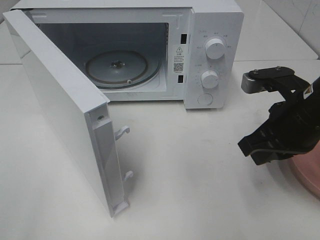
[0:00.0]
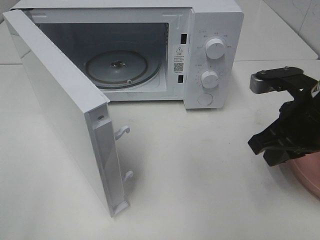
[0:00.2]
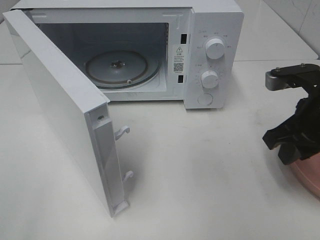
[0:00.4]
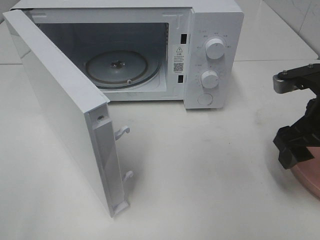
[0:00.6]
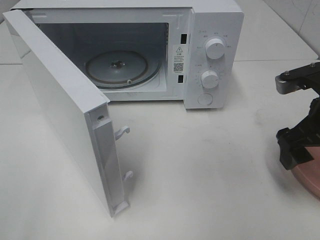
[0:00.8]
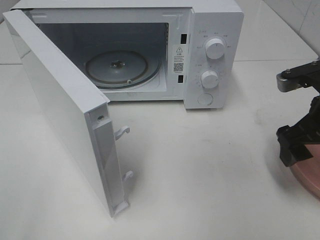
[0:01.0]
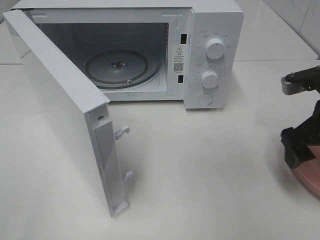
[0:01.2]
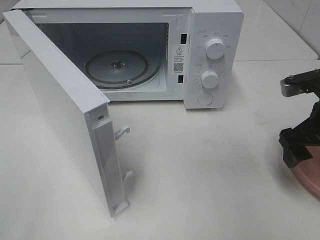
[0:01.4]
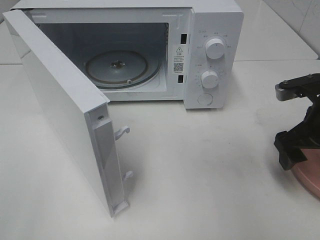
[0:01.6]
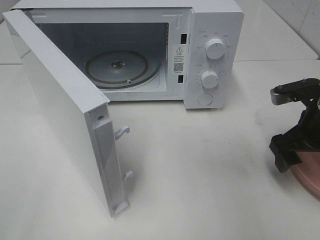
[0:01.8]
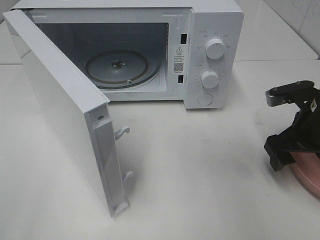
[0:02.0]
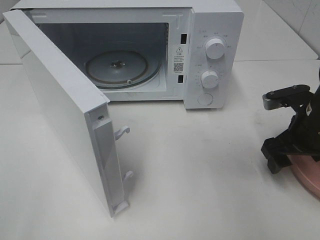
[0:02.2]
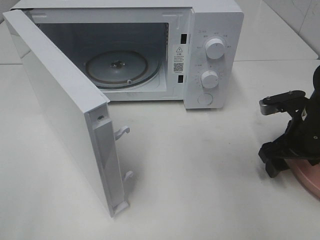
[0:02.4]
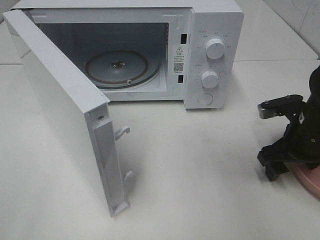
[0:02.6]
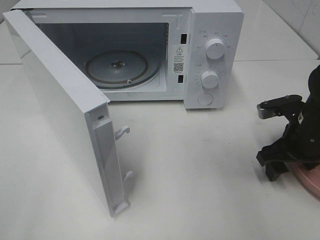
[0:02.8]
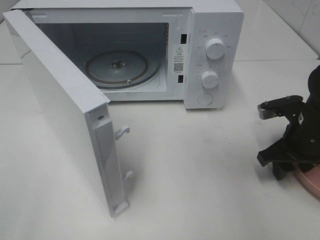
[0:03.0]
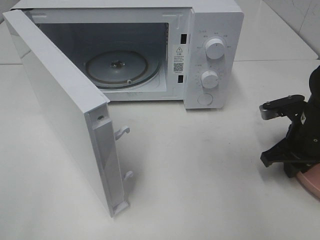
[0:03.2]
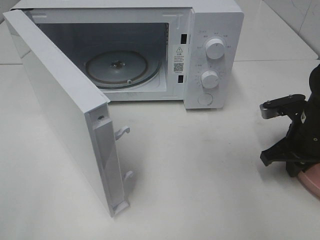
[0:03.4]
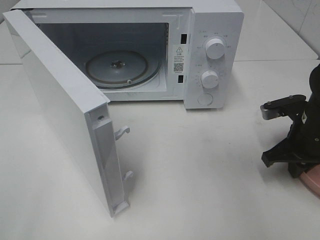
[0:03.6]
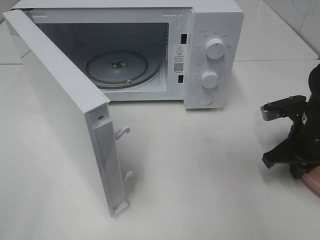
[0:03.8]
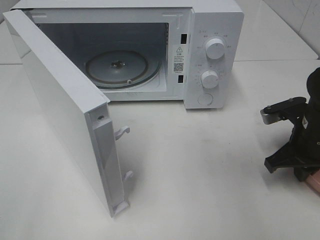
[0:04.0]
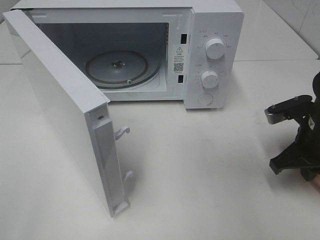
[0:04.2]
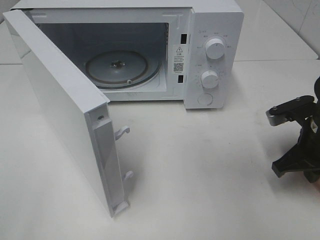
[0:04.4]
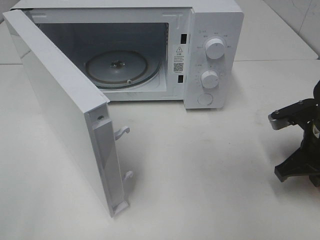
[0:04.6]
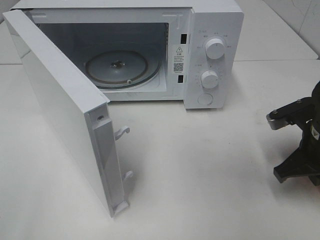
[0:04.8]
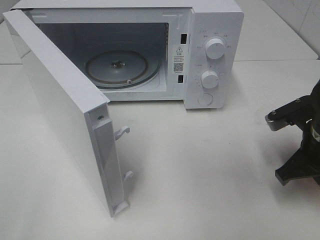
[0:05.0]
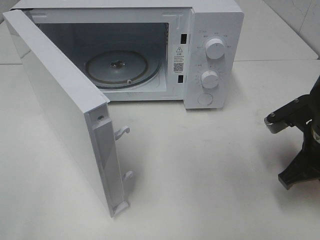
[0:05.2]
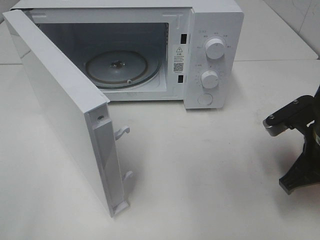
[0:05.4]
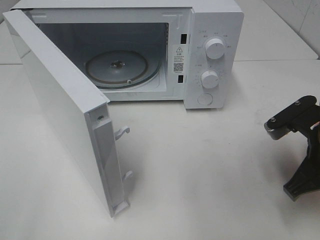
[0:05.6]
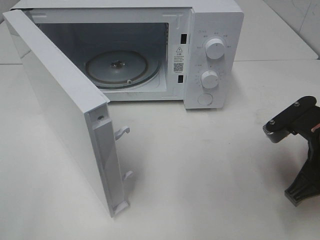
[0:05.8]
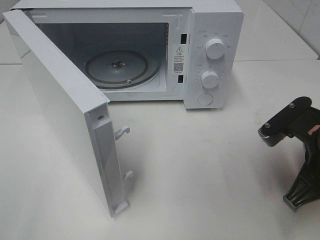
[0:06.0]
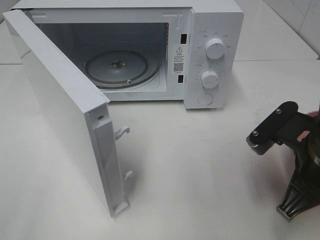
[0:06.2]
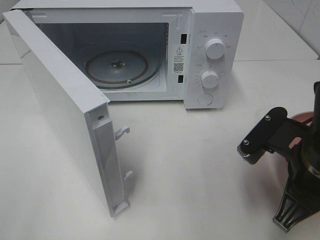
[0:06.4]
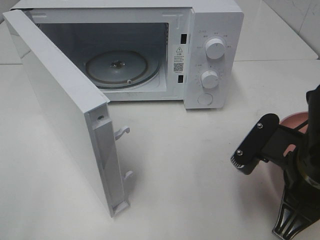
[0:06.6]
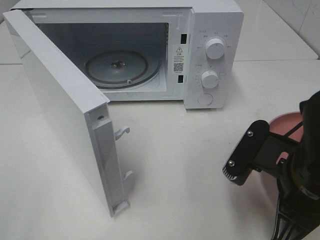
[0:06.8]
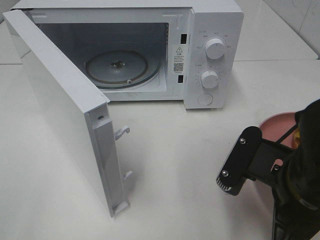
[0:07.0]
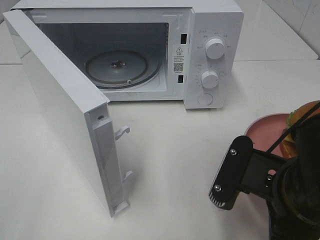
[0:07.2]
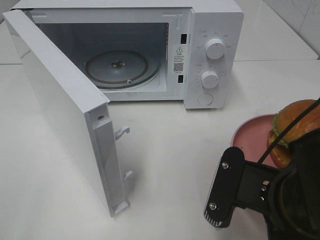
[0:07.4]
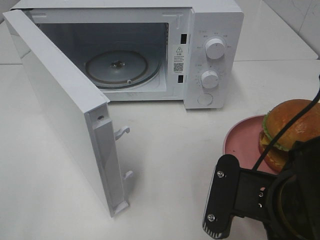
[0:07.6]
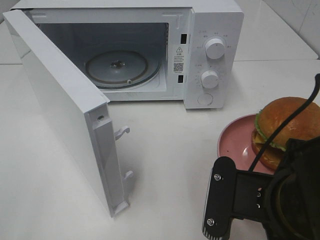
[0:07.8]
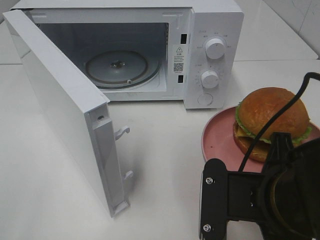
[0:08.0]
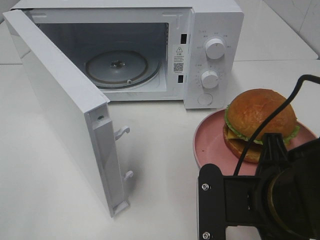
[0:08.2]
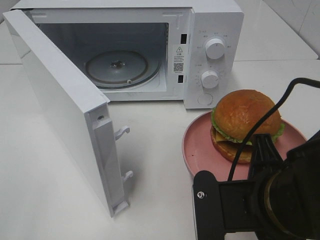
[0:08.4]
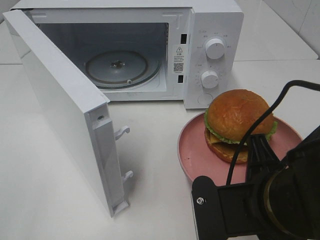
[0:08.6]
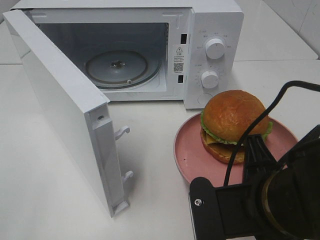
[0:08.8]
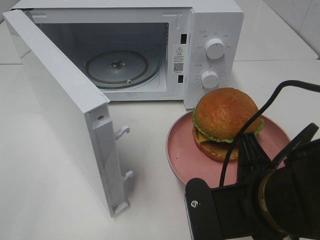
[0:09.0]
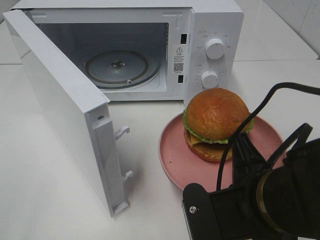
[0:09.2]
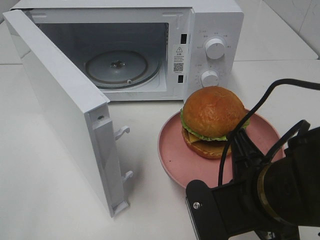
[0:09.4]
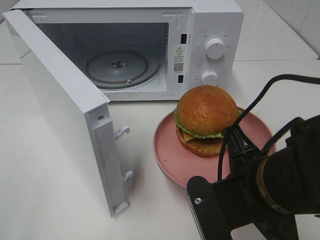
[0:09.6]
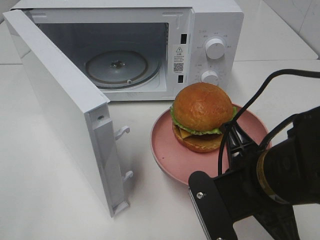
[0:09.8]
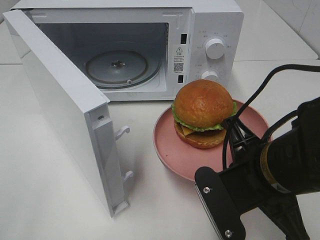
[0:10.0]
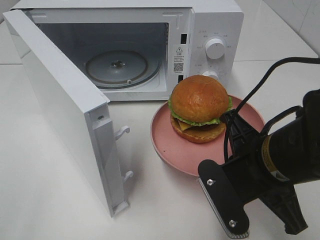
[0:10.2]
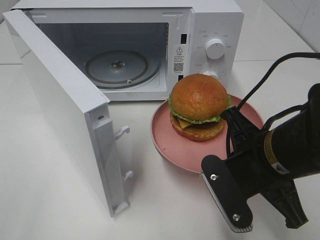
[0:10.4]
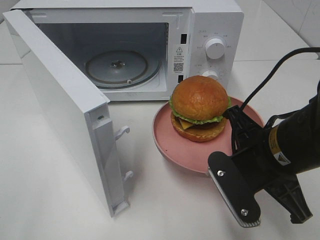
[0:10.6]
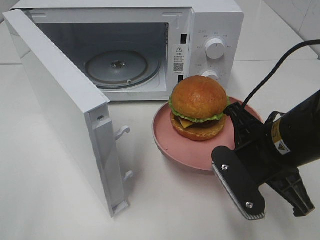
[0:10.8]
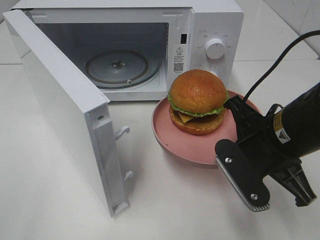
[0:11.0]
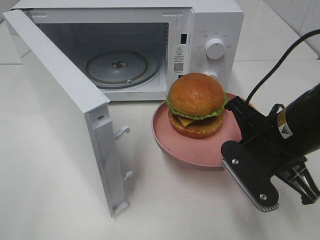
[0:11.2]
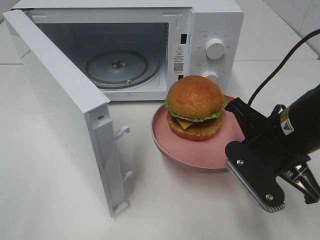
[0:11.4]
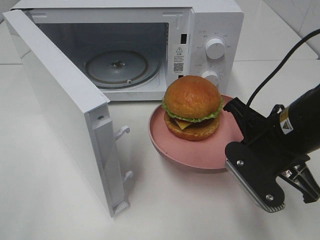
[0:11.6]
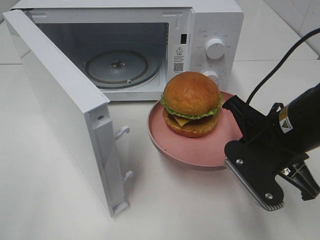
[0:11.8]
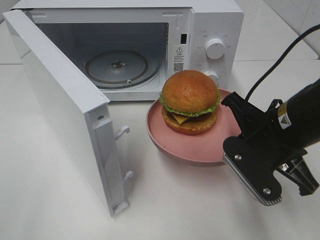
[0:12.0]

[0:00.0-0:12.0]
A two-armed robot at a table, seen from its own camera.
Task of the whole recording: Heat the burger.
Step, 0:00.0 to 0:03.8: Right hand: grab the plate with the hamburger.
0:00.0 to 0:01.6: The right gripper shifts about 5 cm to the right, and opens its fingers.
0:01.6 to 0:03.0: The right gripper heads downward, covering approximately 5 cm.
0:03.0 to 0:04.4: The right gripper closes up.
0:04.4 to 0:06.0: The right gripper goes approximately 5 cm backward.
0:06.0 to 0:07.6: The right gripper is displaced to the left and backward by roughly 10 cm.
0:09.0 to 0:10.4: The right gripper moves forward, some 5 cm.
0:10.4 to 0:12.0: The grippers move only a little.

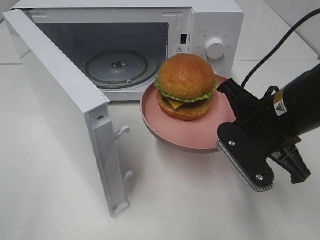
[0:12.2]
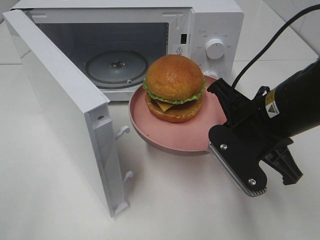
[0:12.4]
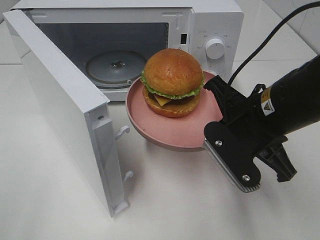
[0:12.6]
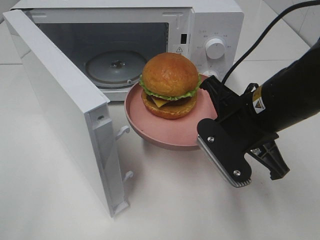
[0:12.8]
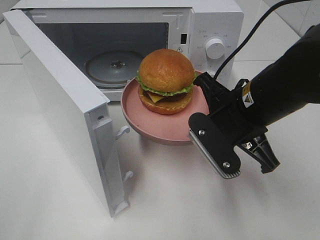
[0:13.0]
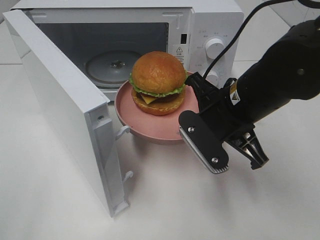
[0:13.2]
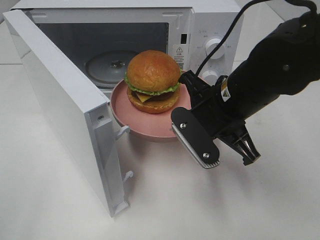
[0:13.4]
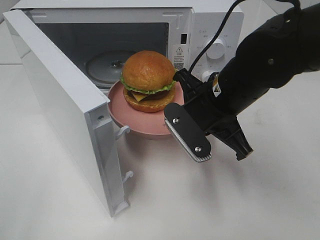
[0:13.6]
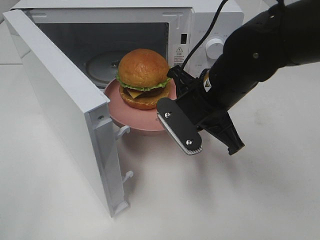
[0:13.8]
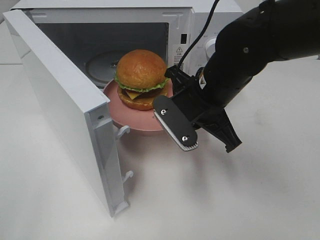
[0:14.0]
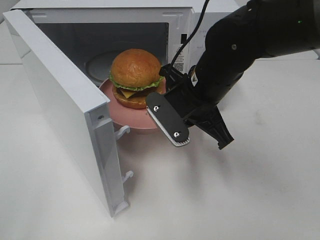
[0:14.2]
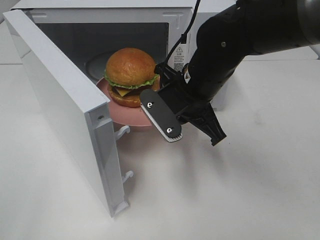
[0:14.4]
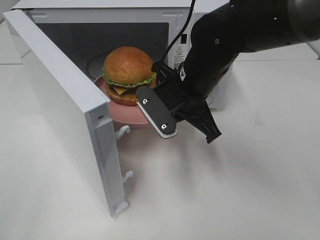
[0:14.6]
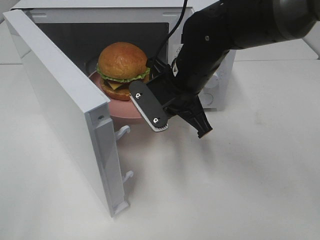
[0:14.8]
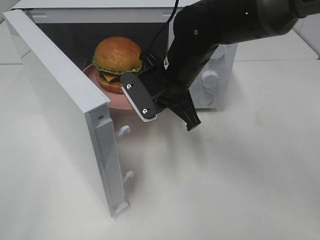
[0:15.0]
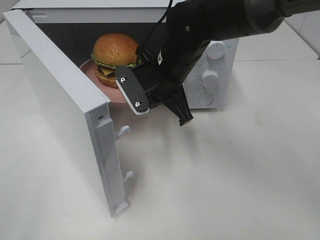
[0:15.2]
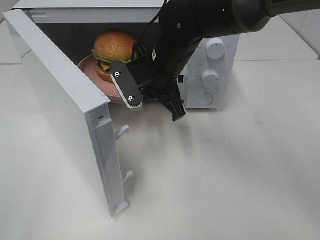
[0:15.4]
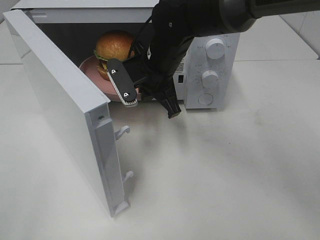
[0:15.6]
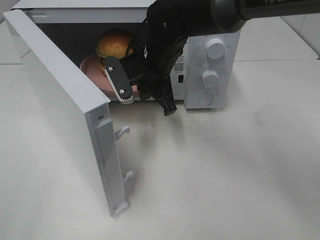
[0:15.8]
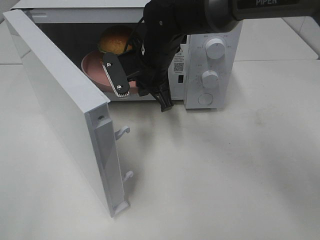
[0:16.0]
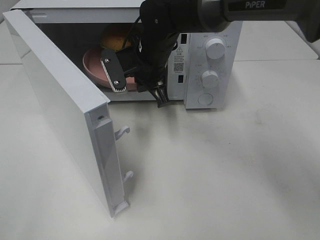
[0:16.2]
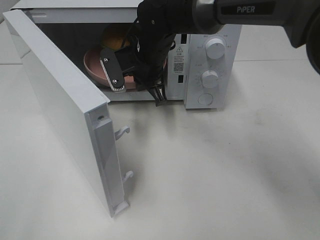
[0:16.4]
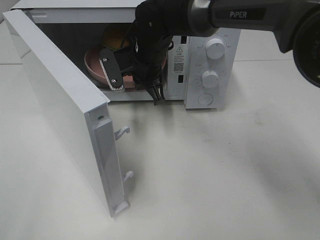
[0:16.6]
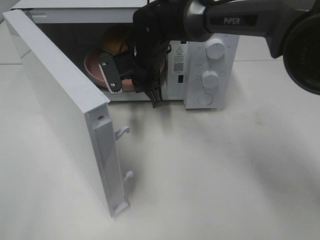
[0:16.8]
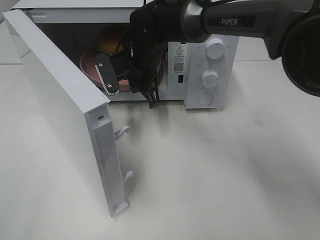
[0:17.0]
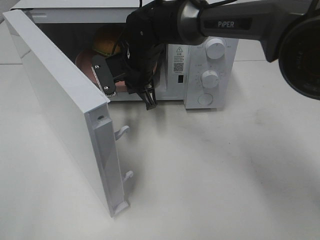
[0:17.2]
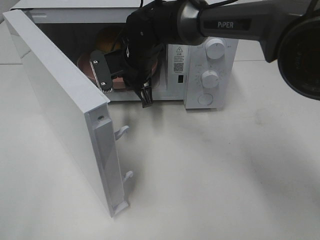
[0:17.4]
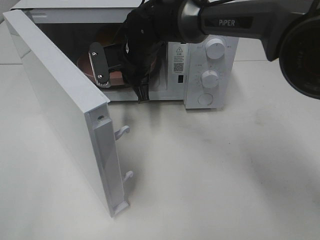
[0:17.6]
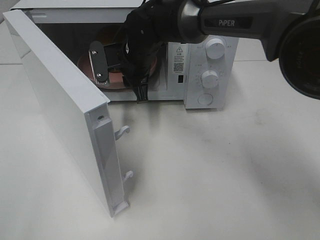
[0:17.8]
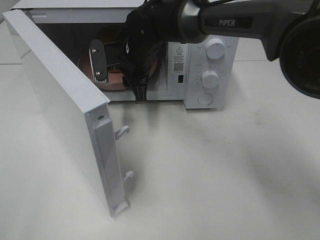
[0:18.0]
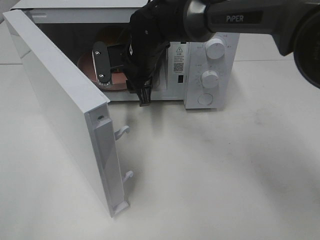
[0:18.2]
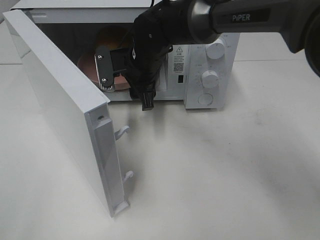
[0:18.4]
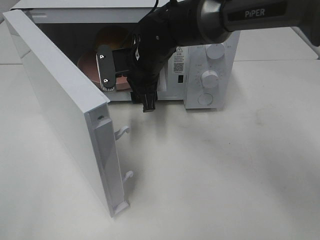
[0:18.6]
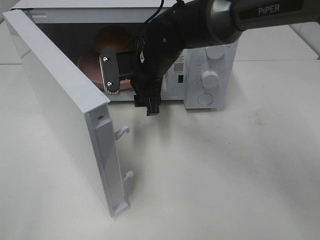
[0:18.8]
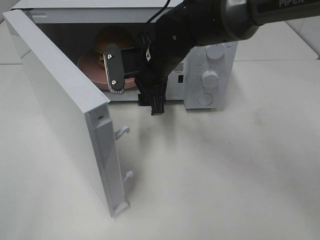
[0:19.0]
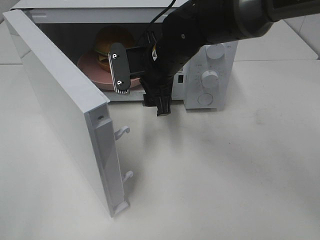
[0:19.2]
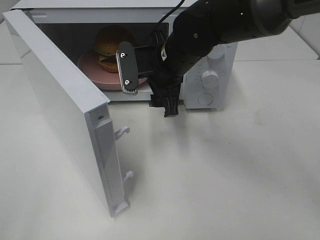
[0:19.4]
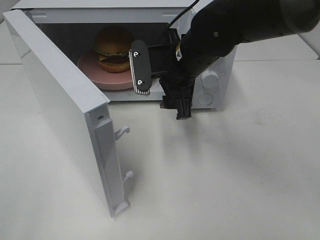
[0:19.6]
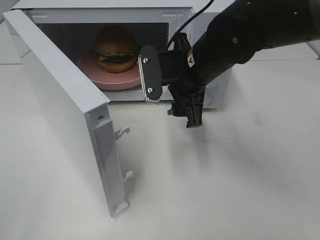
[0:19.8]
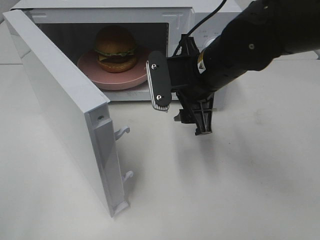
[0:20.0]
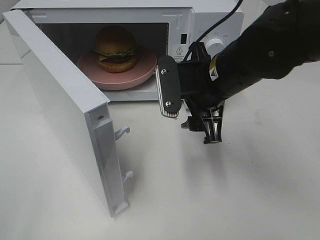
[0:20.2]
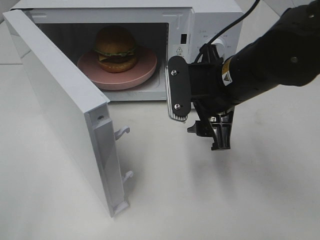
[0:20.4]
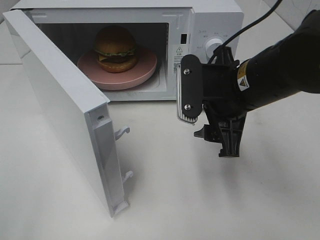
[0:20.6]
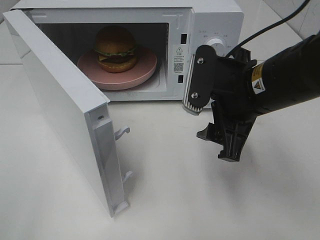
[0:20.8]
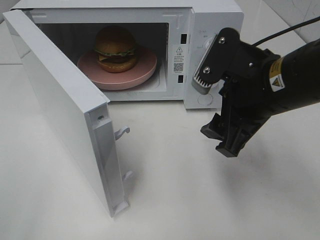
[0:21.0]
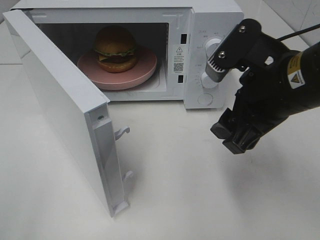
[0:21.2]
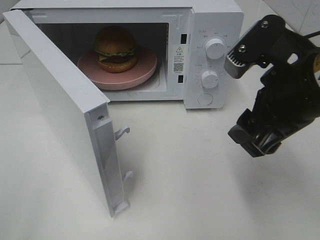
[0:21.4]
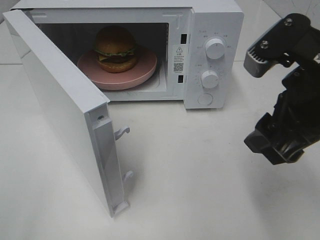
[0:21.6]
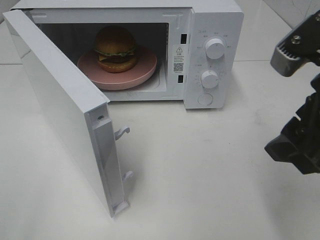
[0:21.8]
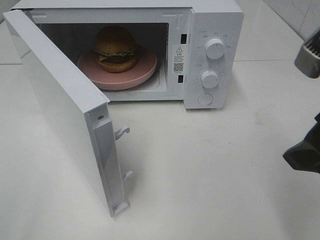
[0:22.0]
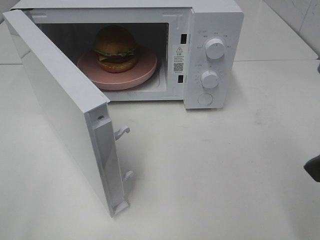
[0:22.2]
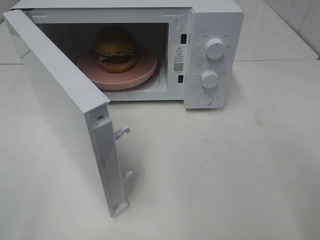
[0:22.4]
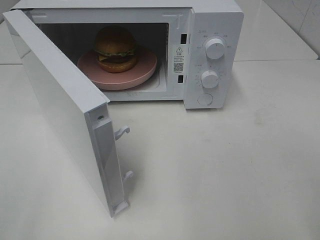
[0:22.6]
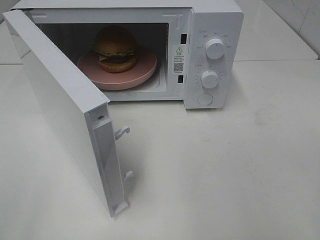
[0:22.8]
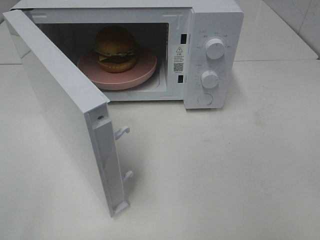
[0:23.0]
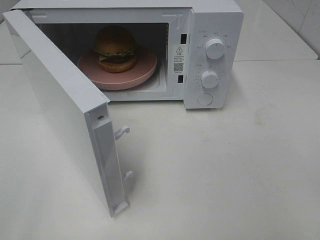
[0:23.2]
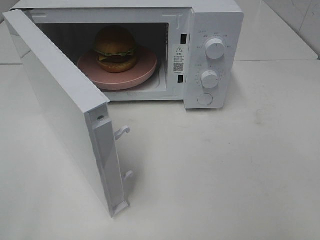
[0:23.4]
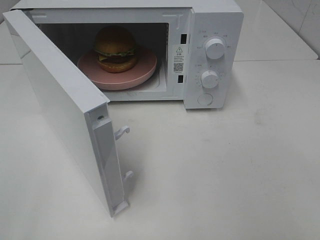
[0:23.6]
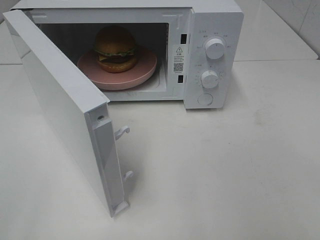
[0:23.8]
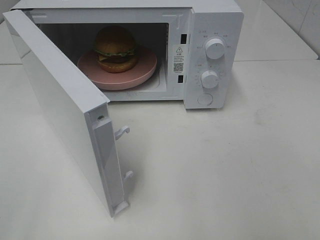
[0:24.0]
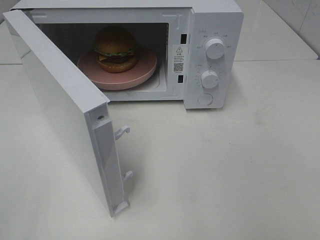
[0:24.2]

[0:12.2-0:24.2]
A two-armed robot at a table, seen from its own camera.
Task of the whole recording: Heat the burger.
Step, 0:12.2 to 0:18.2: Right hand: place the plate in the microwave.
0:12.2 to 0:13.8: The right gripper travels to the left and forward by approximately 10 cm.
0:13.8 to 0:15.2: The right gripper shifts approximately 10 cm forward and to the left.
0:15.2 to 0:16.6: The right gripper heads forward, covering approximately 5 cm.
0:16.6 to 0:18.2: The right gripper opens up.
0:18.2 to 0:19.8: The right gripper heads backward and to the right, covering roughly 15 cm.
0:19.8 to 0:21.2: The right gripper moves backward and to the right, roughly 15 cm.
0:21.2 to 0:22.6: The right gripper is displaced backward, to the right and upward by some 15 cm.
